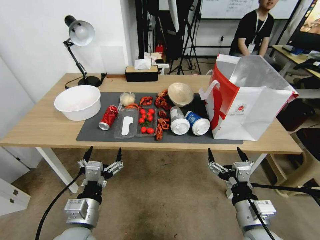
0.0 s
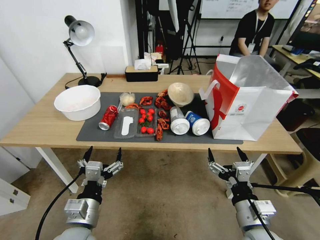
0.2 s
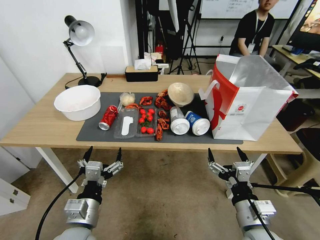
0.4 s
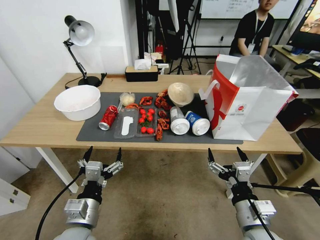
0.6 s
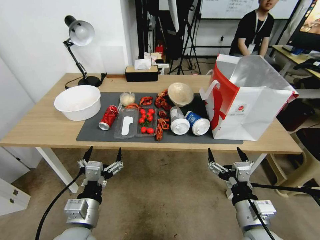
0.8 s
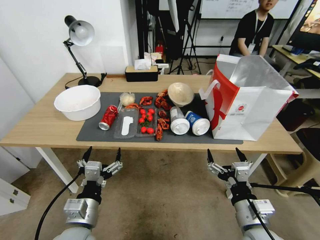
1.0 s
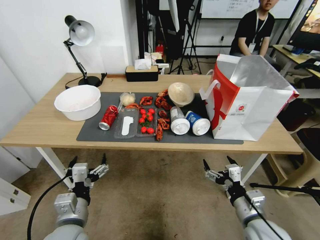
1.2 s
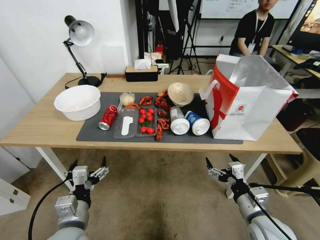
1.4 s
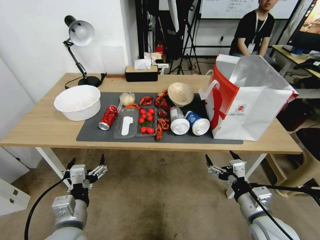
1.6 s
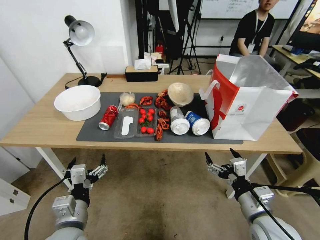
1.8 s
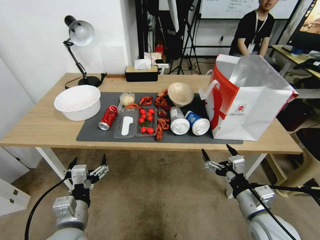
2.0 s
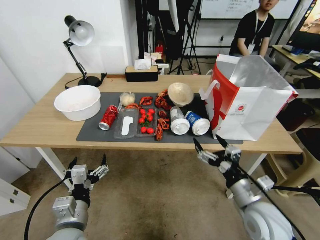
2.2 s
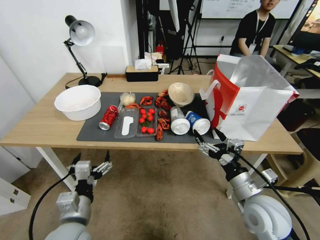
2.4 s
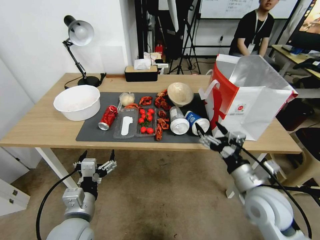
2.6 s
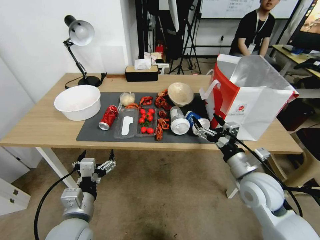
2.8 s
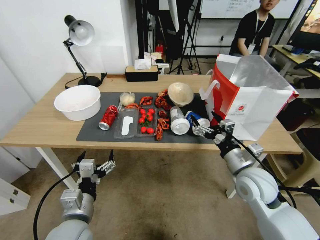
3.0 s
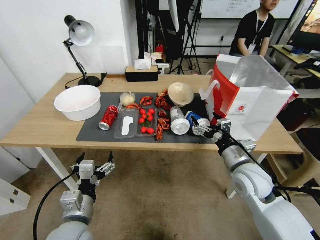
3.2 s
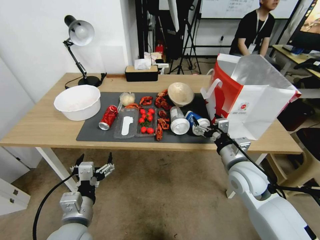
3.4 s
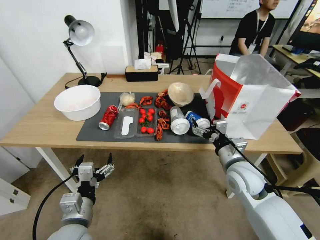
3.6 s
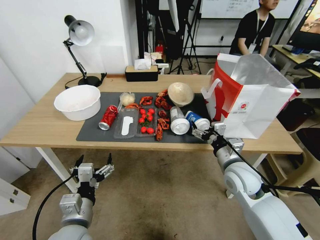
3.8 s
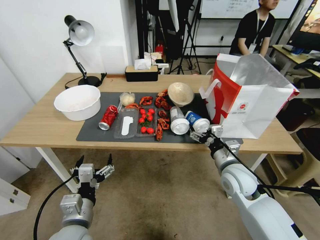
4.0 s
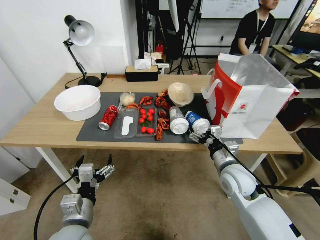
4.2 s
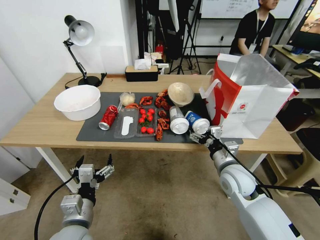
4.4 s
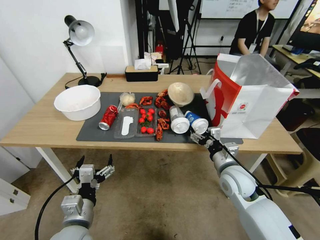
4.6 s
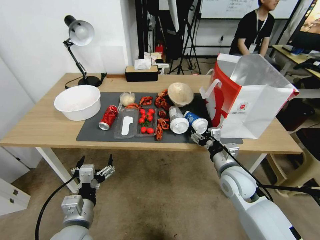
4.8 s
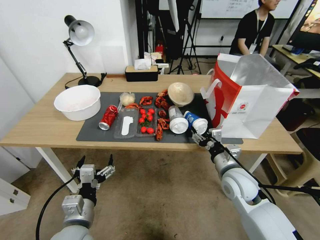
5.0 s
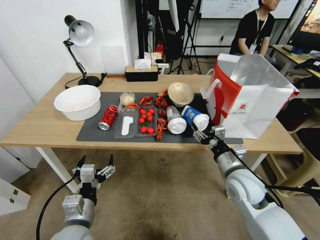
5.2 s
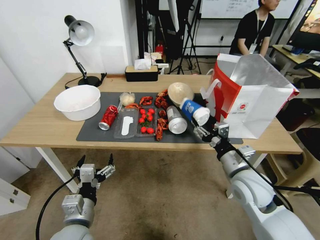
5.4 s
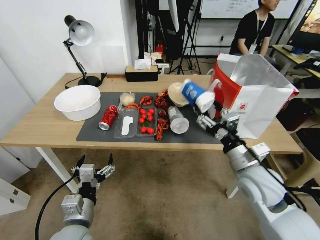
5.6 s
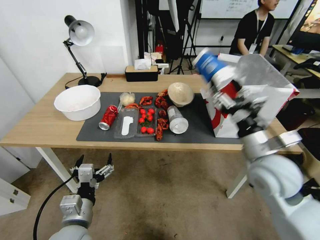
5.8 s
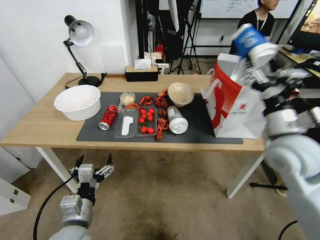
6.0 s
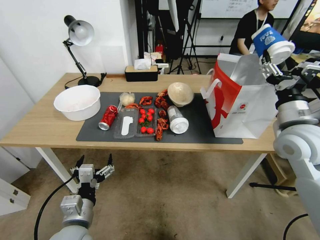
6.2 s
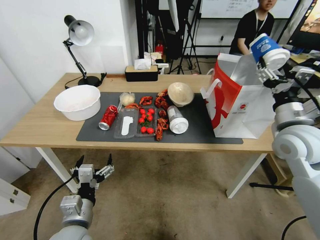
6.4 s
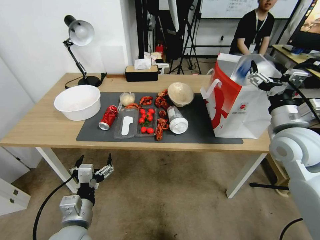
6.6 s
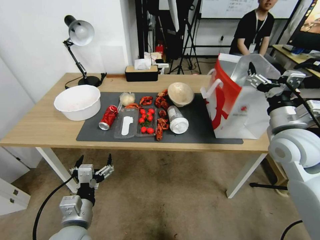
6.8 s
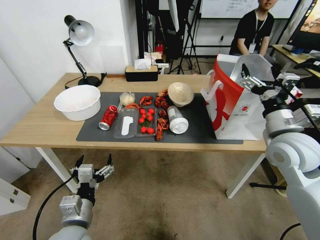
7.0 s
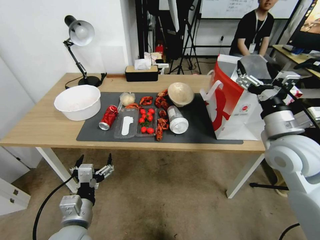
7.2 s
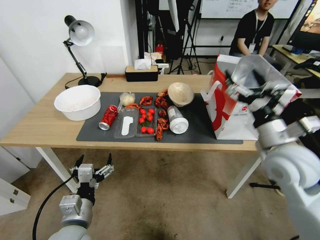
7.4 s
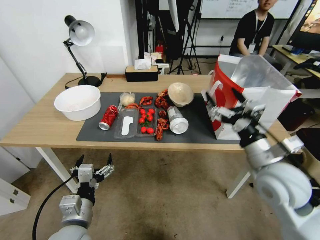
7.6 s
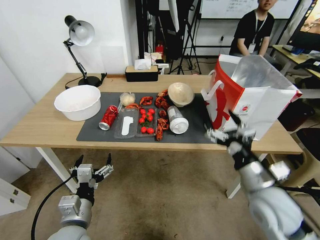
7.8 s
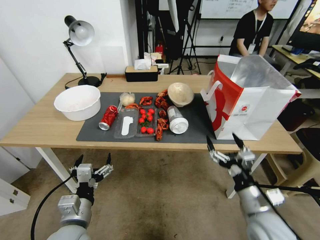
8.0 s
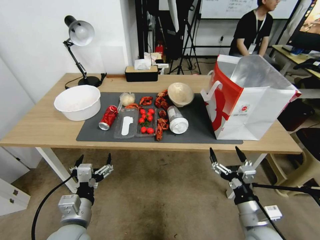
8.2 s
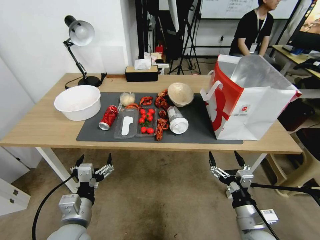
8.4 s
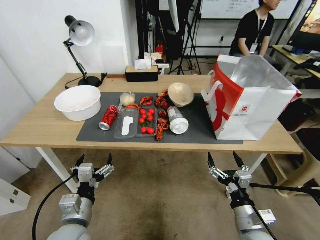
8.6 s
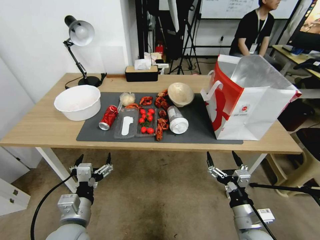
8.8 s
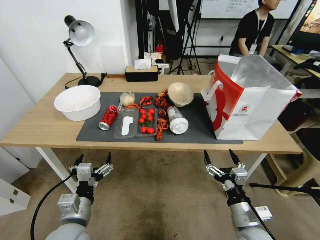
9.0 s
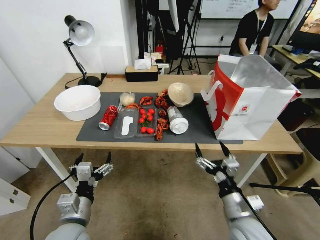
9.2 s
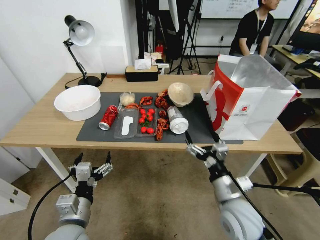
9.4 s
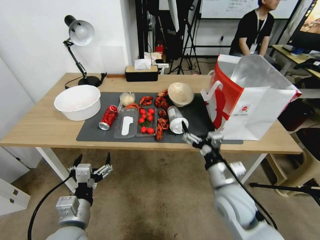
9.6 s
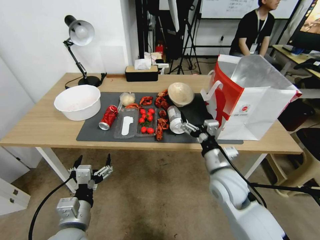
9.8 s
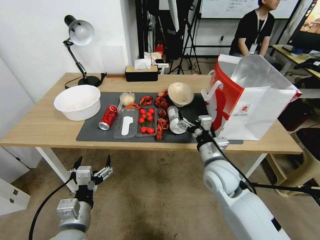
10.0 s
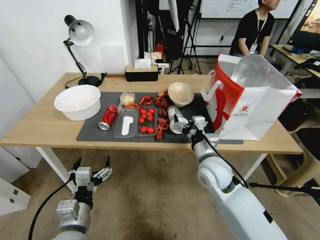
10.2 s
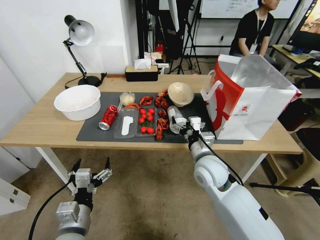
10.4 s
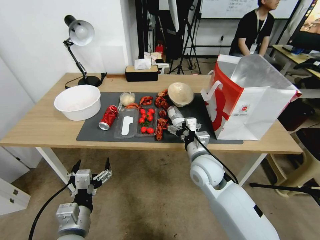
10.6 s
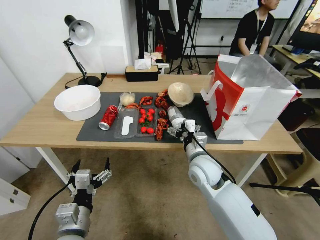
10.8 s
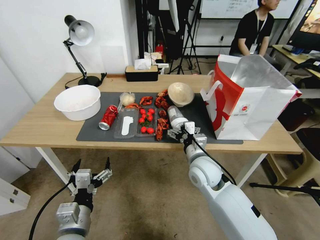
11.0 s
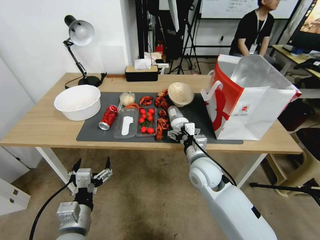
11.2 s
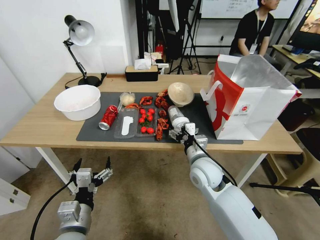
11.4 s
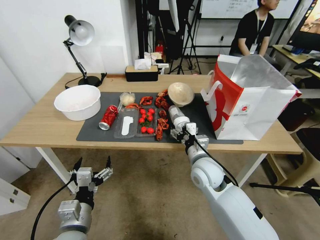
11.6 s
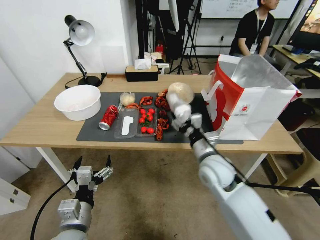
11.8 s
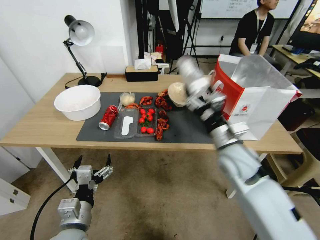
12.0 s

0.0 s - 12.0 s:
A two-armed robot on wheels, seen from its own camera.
1.6 s - 3.0 s: The right gripper heads forward and upward, covering approximately 10 cm.
3.0 s - 4.4 s: The right gripper changes place by some 5 cm.
4.4 s - 6.0 s: The right gripper shifts approximately 10 cm upward.
6.0 s - 7.6 s: The right gripper goes to the right and returns, approximately 10 cm each way.
7.6 s - 9.0 s: The right gripper moves downward and backward, approximately 20 cm.
9.0 s - 10.4 s: The right gripper moves forward, to the left and upward, roughly 20 cm.
10.4 s - 12.0 s: The grippers stay close to where they were, moving slightly.

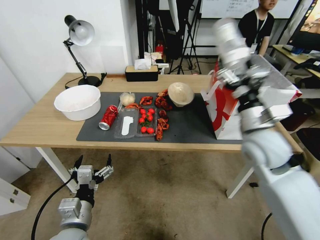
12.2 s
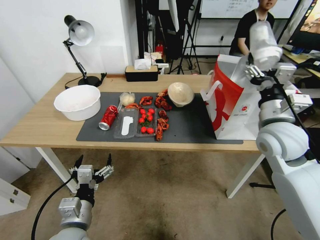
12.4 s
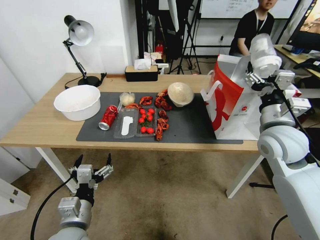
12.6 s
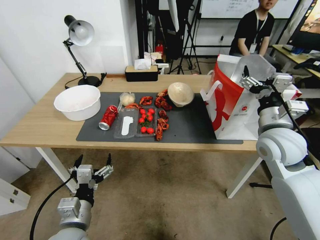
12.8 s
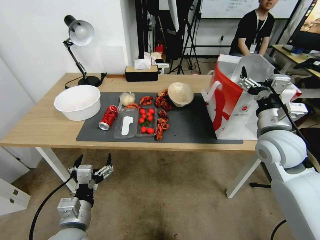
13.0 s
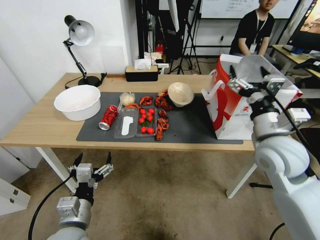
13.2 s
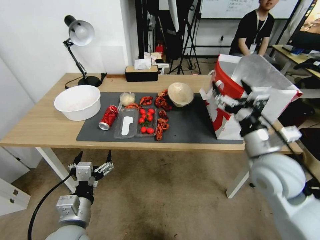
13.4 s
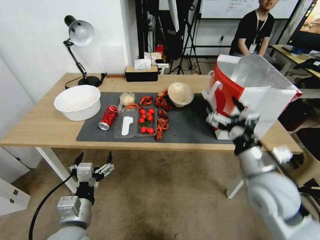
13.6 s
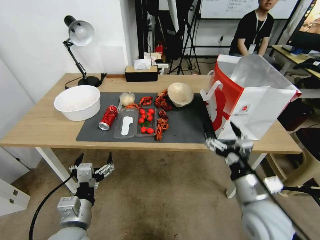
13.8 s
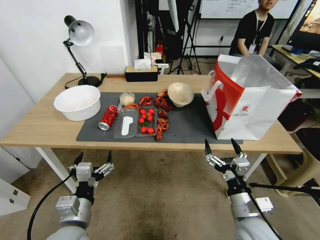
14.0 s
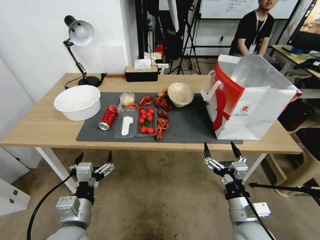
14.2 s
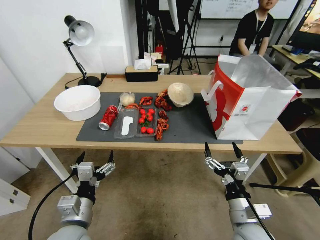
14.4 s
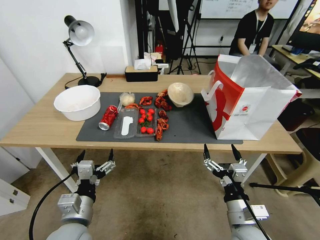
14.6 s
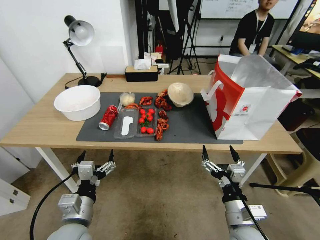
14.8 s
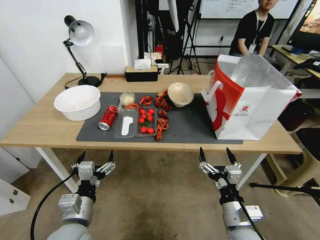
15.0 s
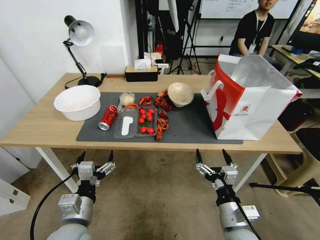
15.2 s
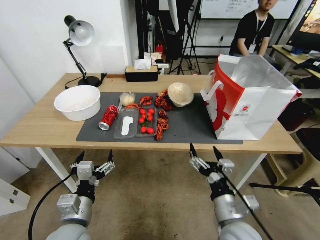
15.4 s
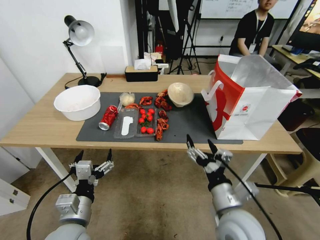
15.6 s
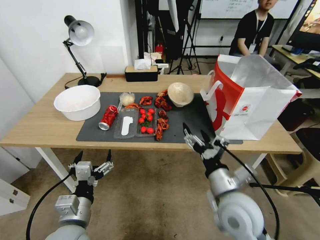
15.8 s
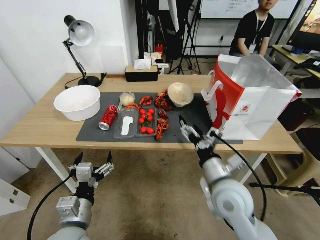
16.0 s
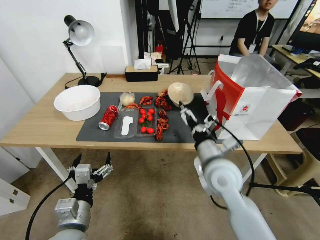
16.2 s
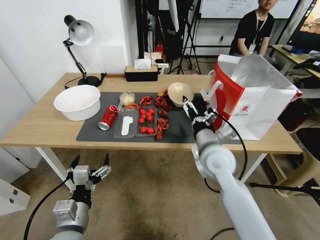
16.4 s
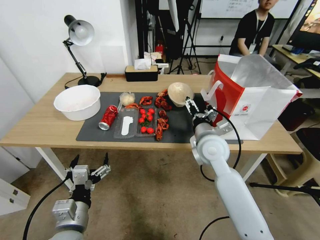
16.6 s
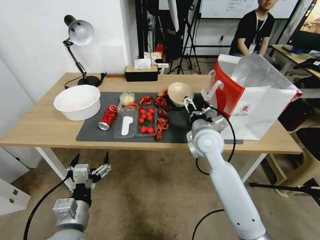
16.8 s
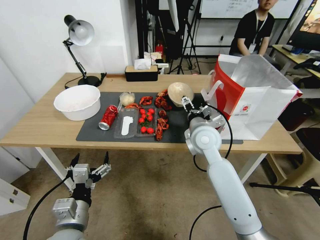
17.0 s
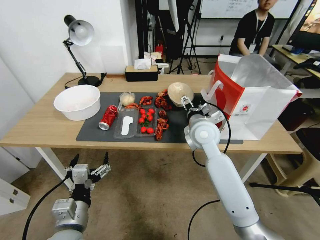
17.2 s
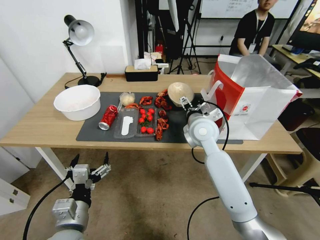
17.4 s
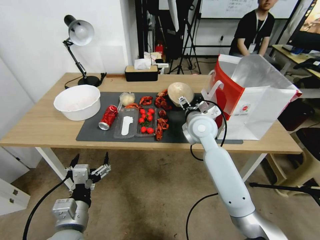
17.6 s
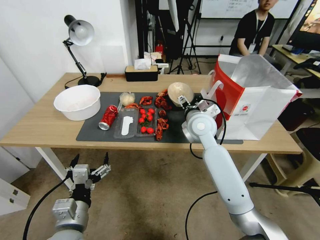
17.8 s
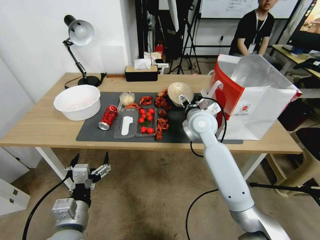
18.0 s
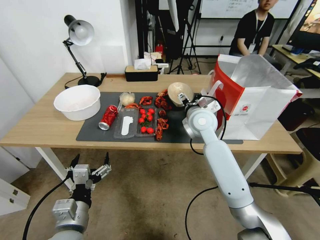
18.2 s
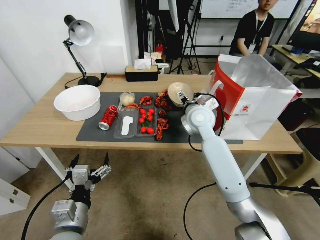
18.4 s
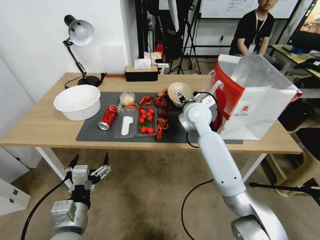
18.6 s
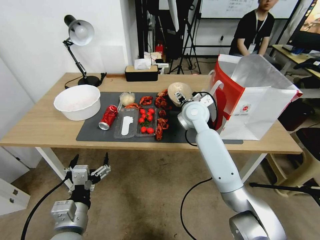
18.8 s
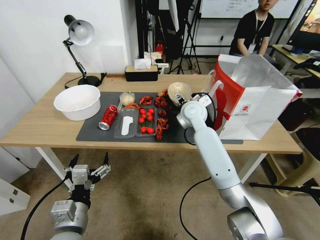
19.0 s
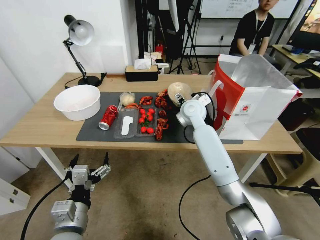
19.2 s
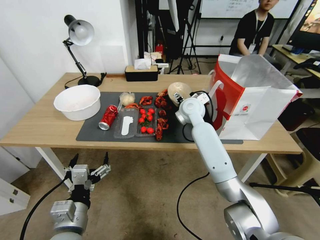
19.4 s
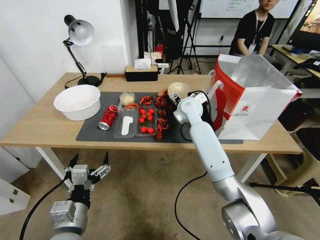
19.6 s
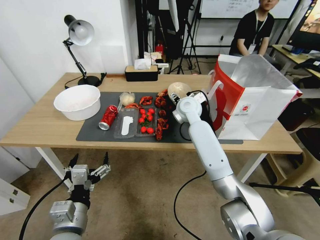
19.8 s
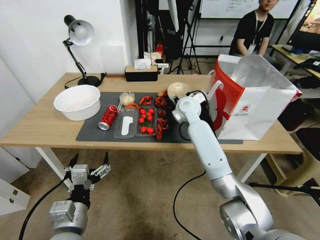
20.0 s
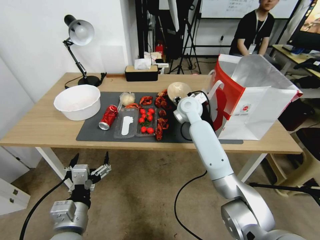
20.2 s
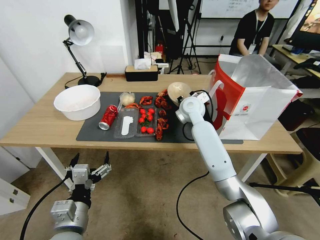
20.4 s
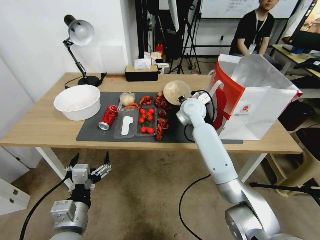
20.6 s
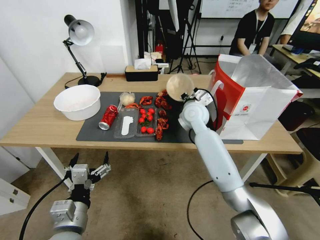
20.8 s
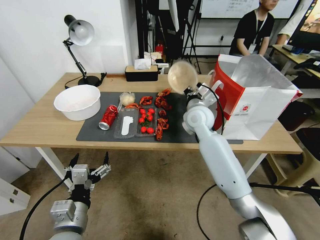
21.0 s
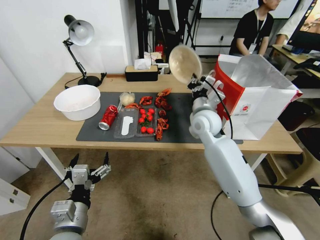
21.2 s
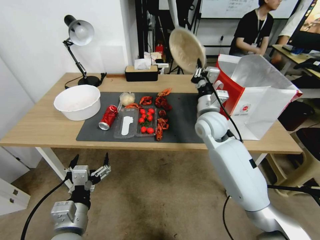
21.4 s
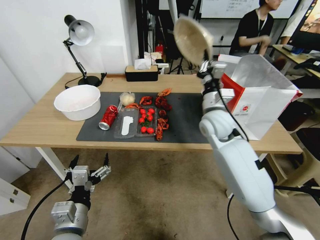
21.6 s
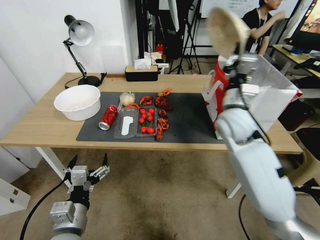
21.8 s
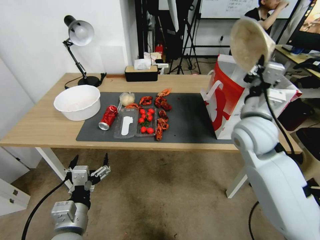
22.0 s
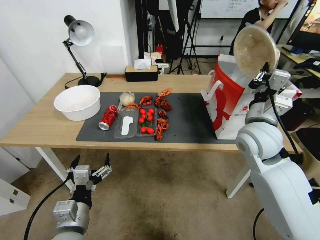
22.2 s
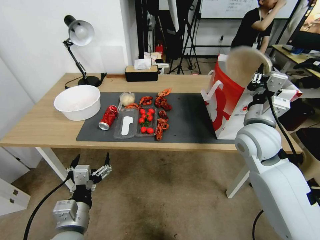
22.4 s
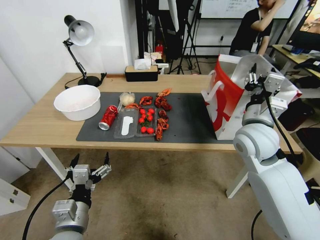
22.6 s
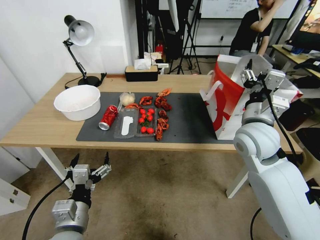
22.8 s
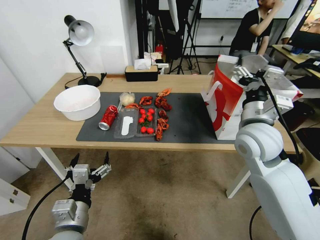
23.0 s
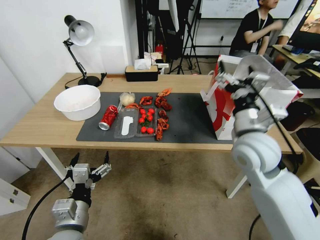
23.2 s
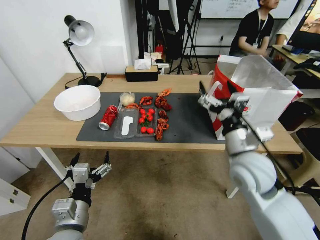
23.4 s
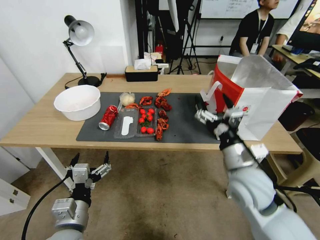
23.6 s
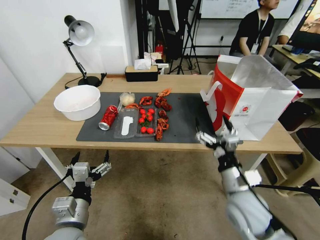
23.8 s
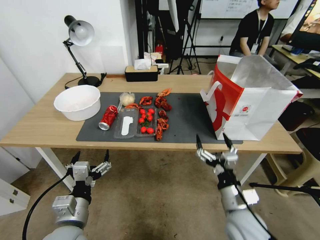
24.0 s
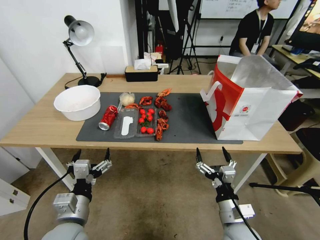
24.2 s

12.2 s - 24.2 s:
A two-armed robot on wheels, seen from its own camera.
12.2 s - 13.8 s: The right gripper travels backward and downward by approximately 15 cm.
13.8 s - 15.2 s: The right gripper moves downward, roughly 5 cm.
15.2 s - 16.6 s: The right gripper heads forward and upward, covering some 25 cm.
16.6 s - 18.2 s: The right gripper moves forward, some 10 cm.
18.2 s - 19.8 s: The right gripper heads forward, covering approximately 10 cm.
19.8 s - 21.2 s: The right gripper heads backward, covering some 5 cm, and closes.
21.2 s - 22.6 s: The right gripper moves backward and to the right, roughly 15 cm, and opens.
22.6 s - 24.2 s: The right gripper shifts roughly 30 cm downward and backward, and opens its fingers.
